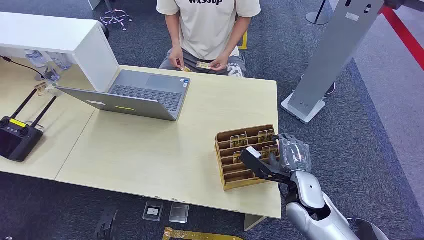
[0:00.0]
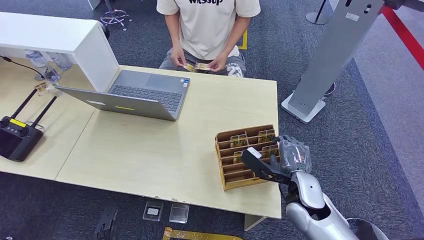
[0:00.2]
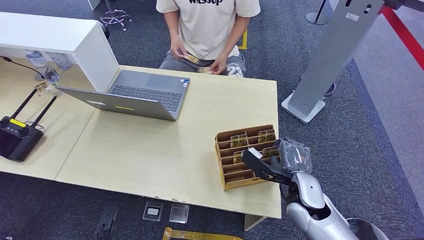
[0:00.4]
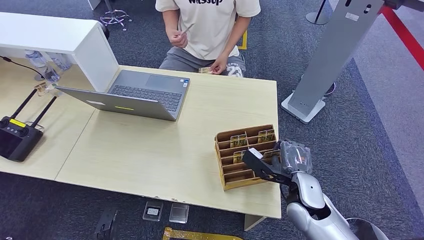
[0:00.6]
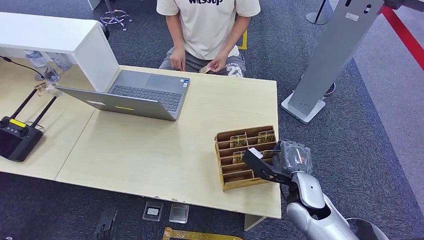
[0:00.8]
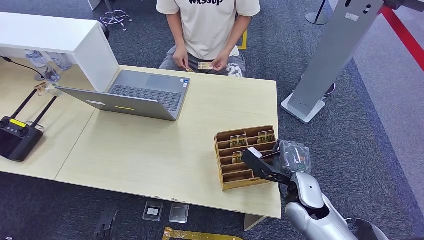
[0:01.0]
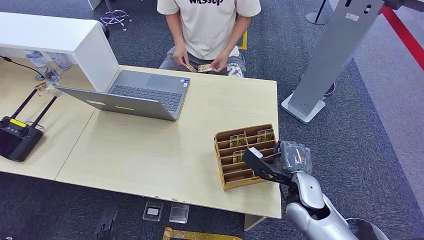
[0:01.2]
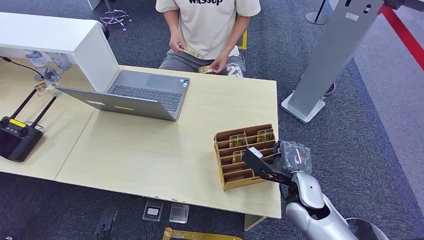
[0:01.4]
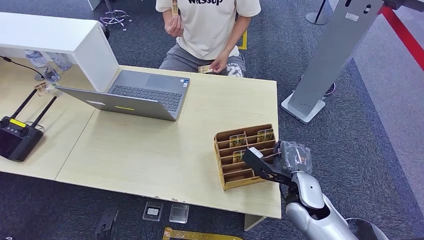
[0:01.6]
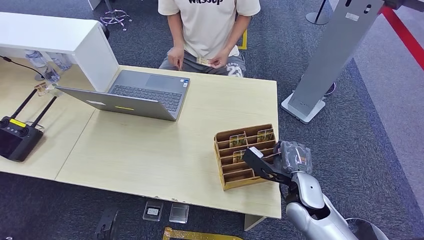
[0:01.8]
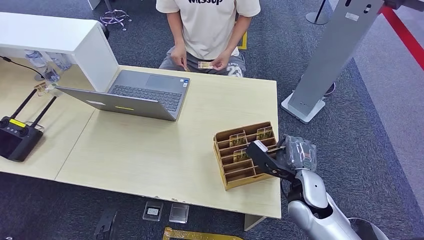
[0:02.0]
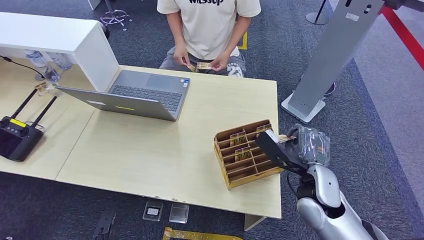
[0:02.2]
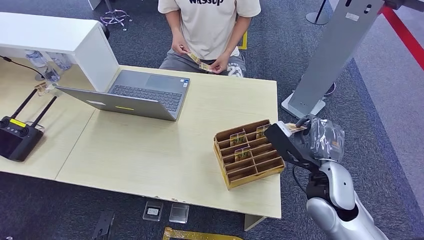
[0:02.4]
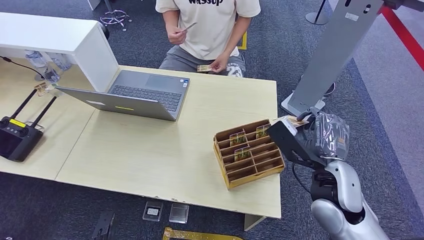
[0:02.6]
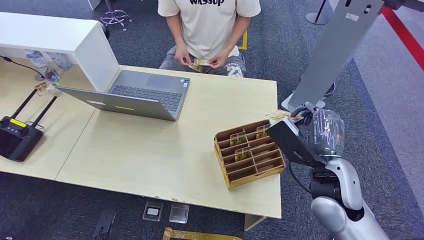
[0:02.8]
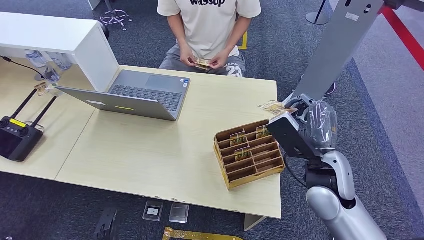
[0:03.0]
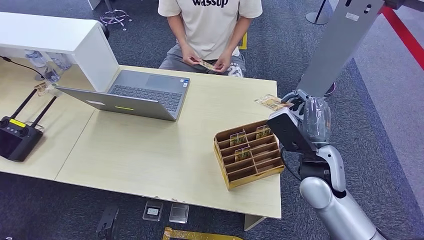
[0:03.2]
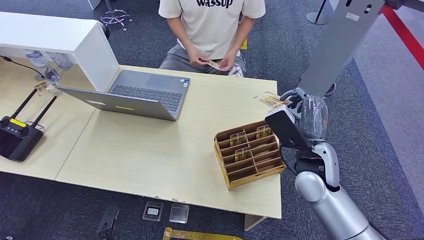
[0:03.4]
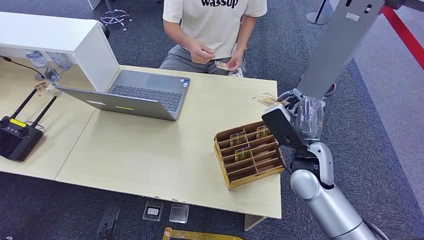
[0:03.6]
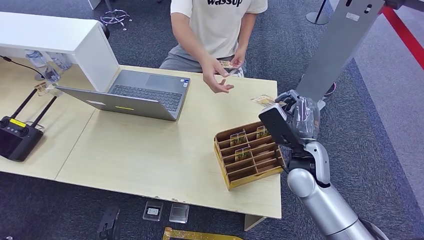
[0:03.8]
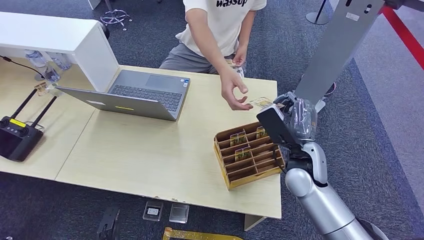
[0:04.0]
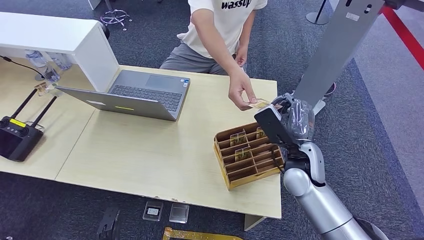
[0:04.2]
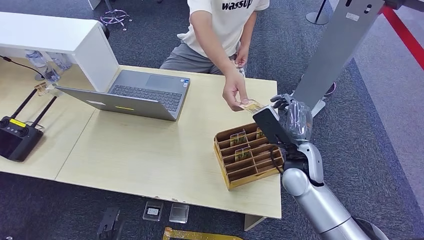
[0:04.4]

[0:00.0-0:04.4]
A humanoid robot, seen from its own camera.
Step, 0:00.0 to 0:02.0: Pick up the key card from the card box.
Step, 0:03.0 to 0:04.4: Hand the key card to the target.
0:01.4 to 0:03.0: The right hand heads upward, covering about 10 cm.
0:03.0 to 0:04.4: The right hand ends up roughly 10 cm from where it was.
